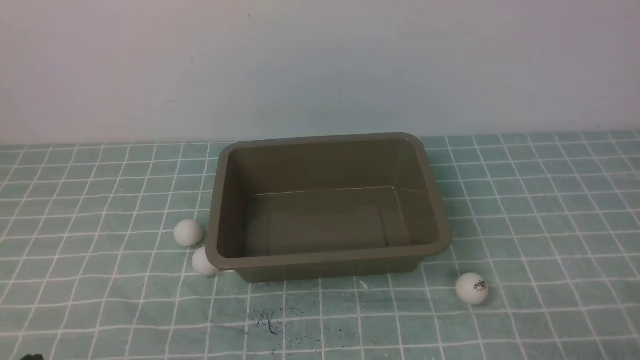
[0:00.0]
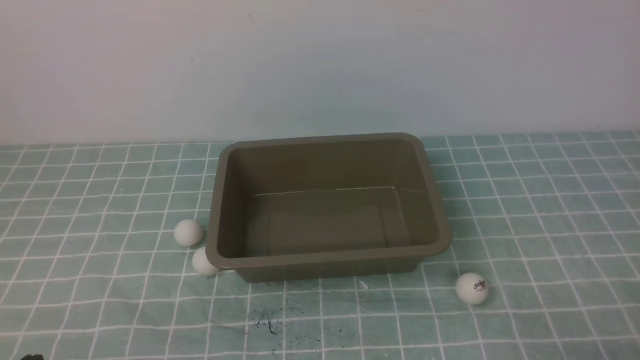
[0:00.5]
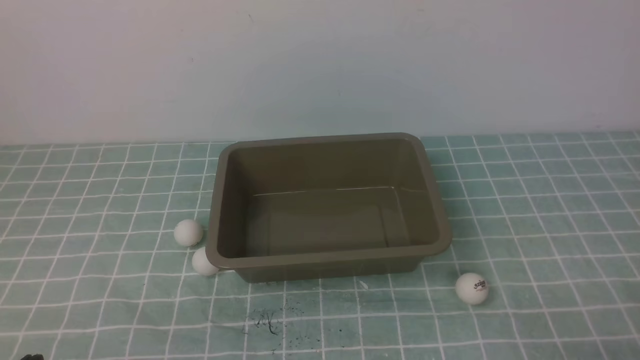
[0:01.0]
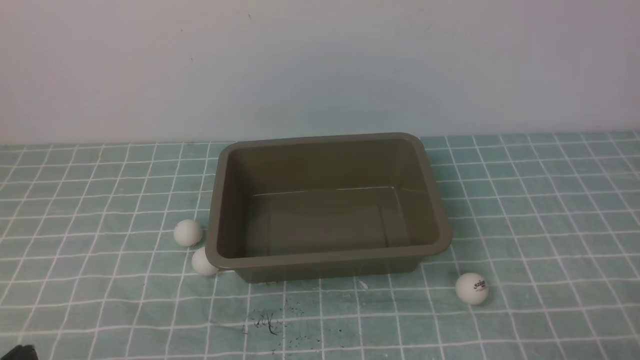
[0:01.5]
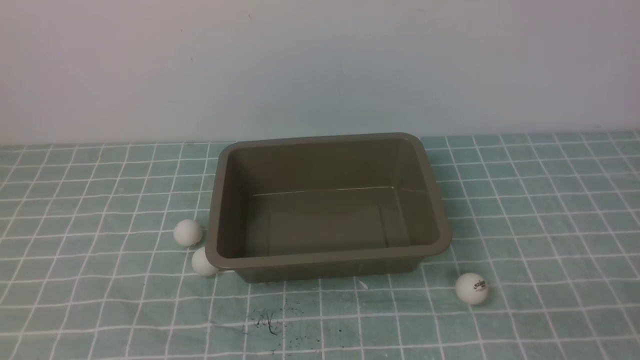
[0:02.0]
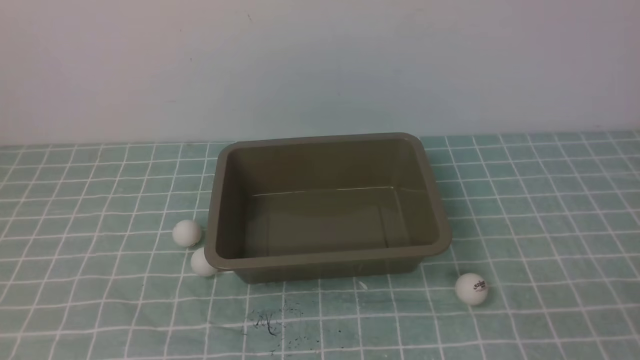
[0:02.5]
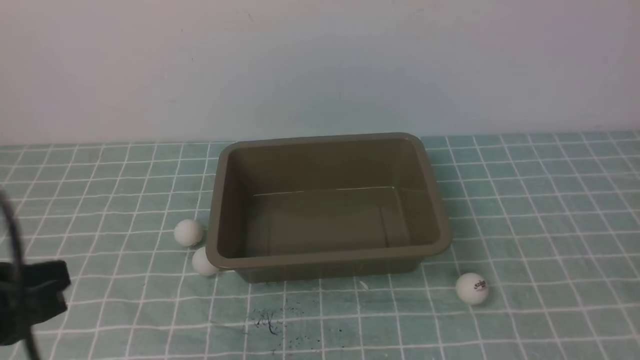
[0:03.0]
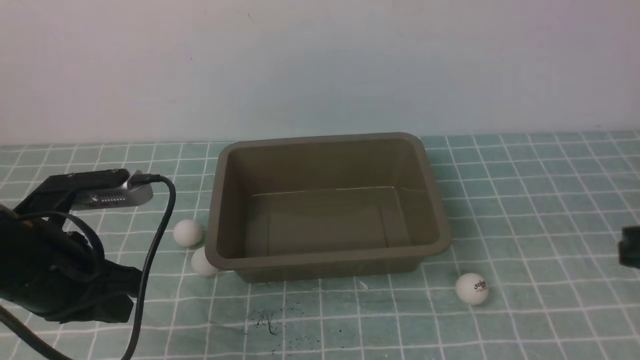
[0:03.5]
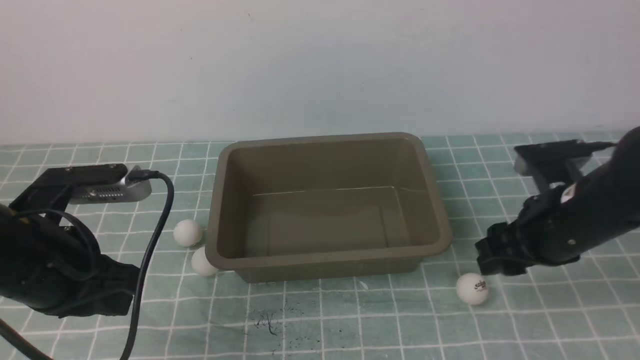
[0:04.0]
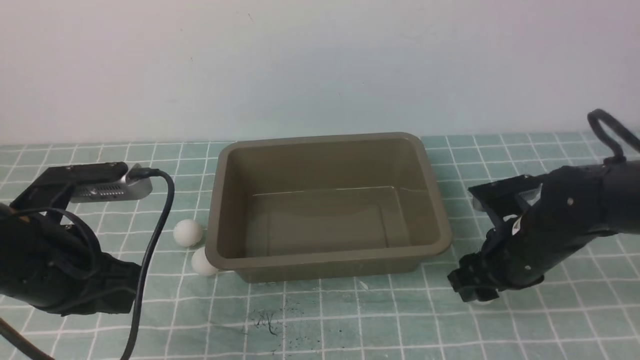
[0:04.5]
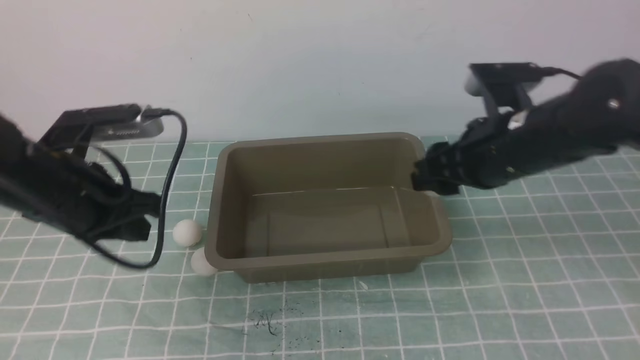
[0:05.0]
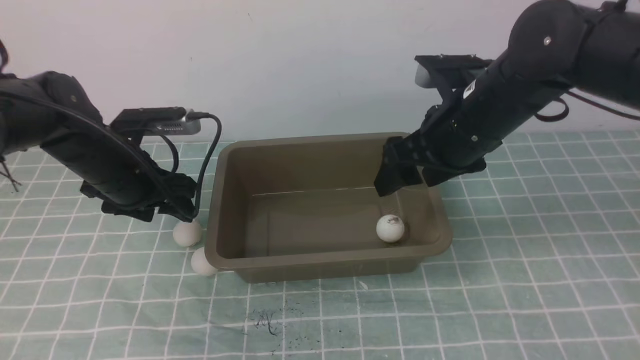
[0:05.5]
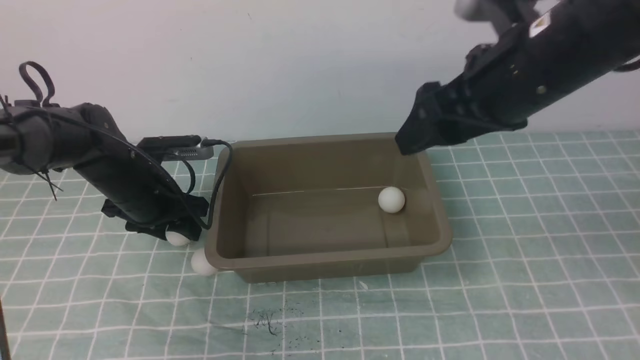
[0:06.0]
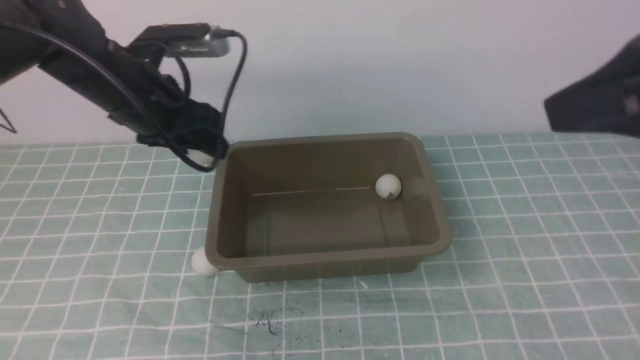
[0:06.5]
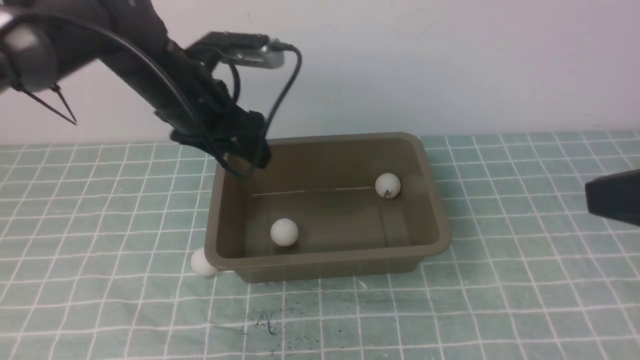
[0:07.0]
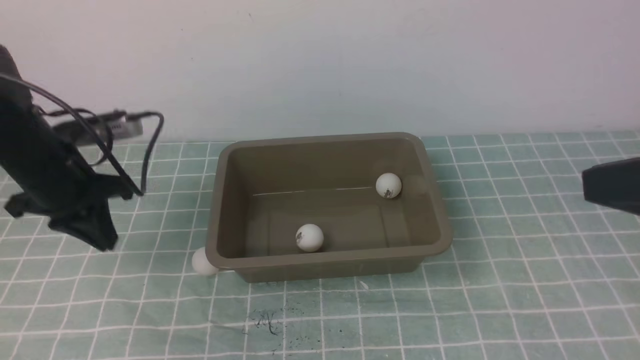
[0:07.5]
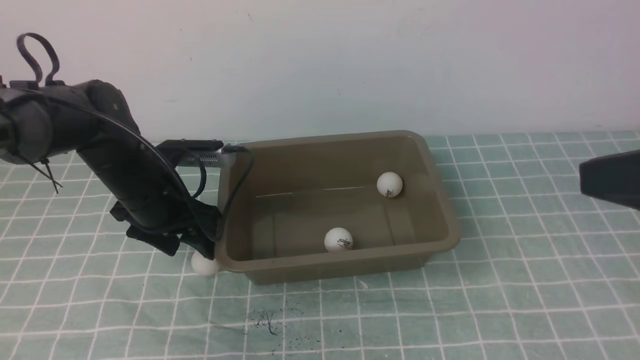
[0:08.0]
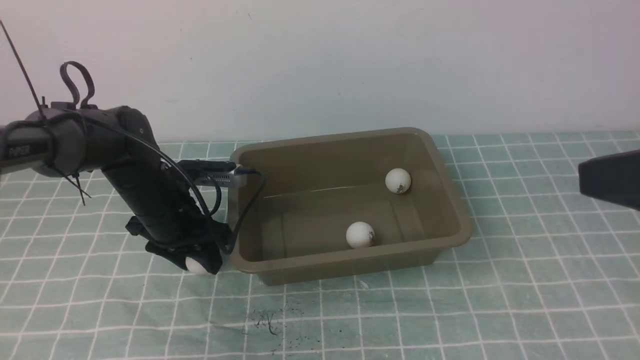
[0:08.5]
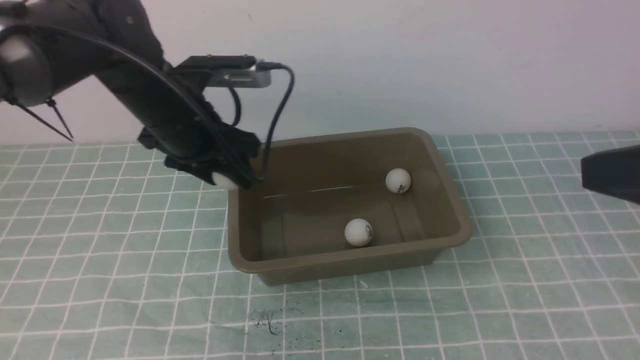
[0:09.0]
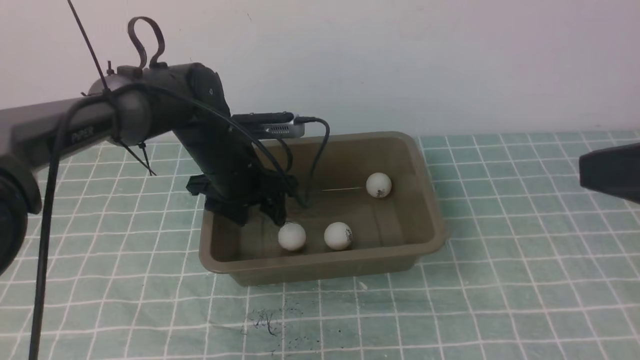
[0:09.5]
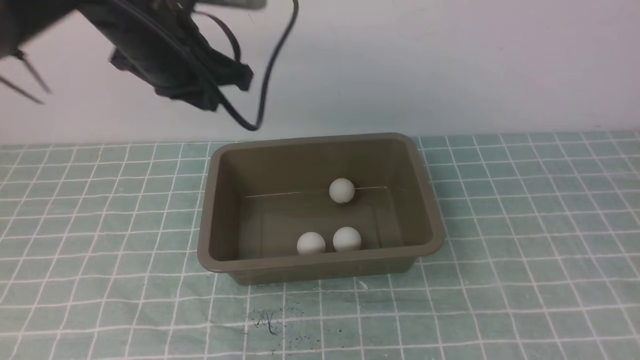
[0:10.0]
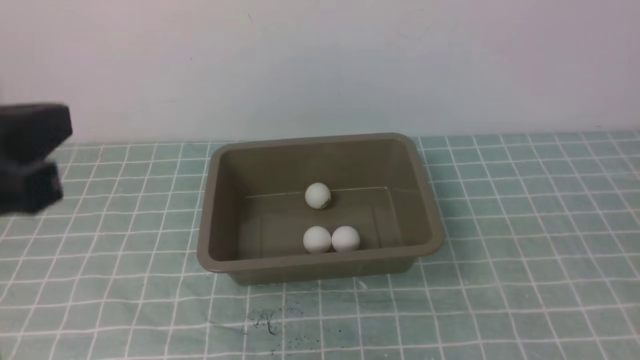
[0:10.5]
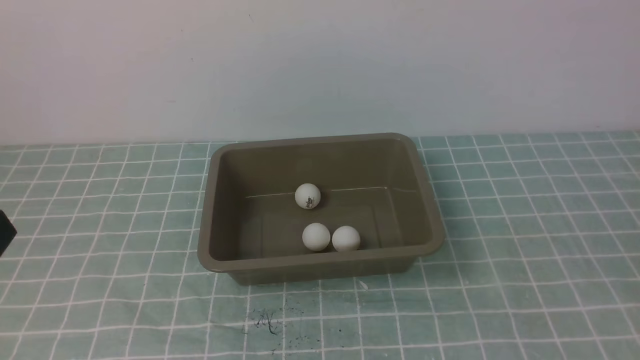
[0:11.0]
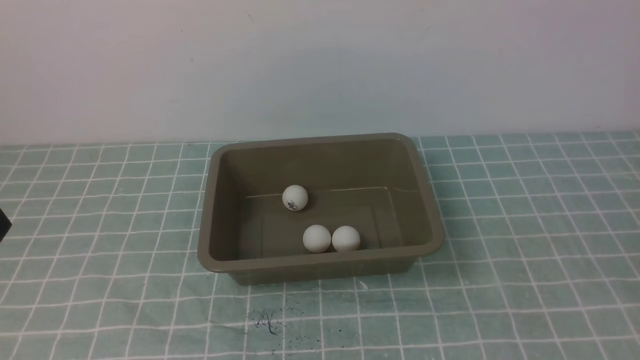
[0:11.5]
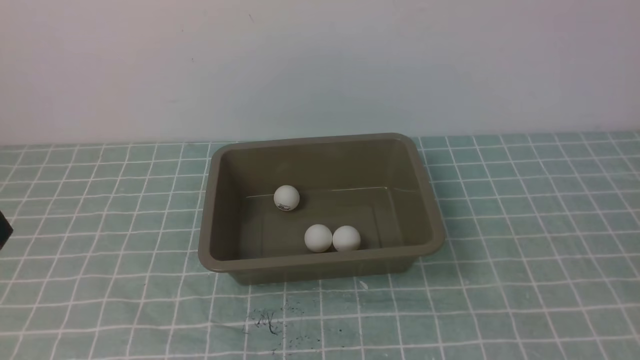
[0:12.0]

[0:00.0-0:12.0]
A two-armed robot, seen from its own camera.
Step, 0:00.0 to 0:04.5: use the right arm to clamp the table tennis ball closest to it.
Step, 0:05.5 to 0:06.0: use the left arm to clamp the table tennis ball closest to it.
Step, 0:07.5 to 0:08.5: use the left arm to clamp the table tennis ball closest to it.
Step, 0:09.0 to 0:09.5: use the left arm to put the table tennis ball into the box.
0:02.0 to 0:04.0: The grippers both shift forward by about 20 cm. The right gripper opens up.
0:04.0 to 0:06.0: The right gripper travels upward by some 15 cm; the left gripper is displaced forward and downward by about 20 cm, and opens its fingers.
0:06.0 to 0:08.0: The right gripper shifts roughly 15 cm backward and to the right, and closes its fingers; the left gripper travels upward and back again, about 10 cm each way, and closes and opens again.
0:08.0 to 0:10.0: The left gripper swings up and down, some 20 cm each way, with 2 reversals, and closes.
0:10.0 to 0:12.0: The right gripper is displaced downward and backward by roughly 10 cm. The left gripper goes some 30 cm backward.

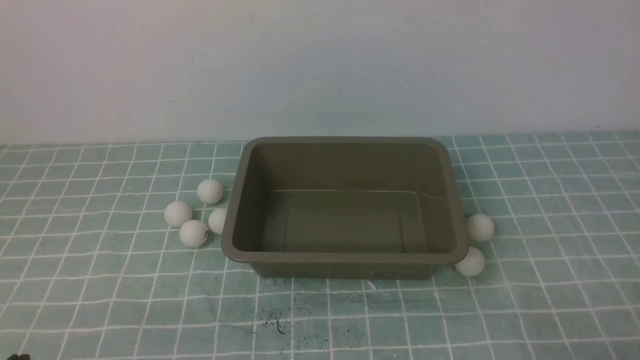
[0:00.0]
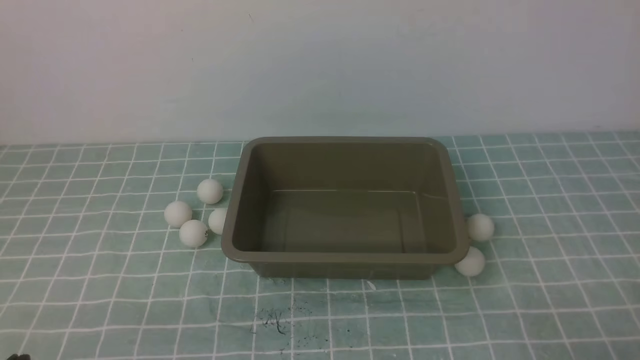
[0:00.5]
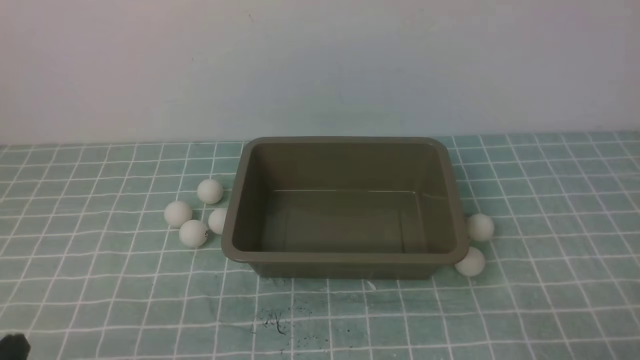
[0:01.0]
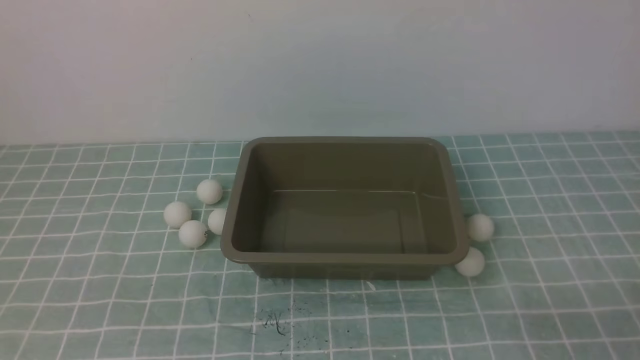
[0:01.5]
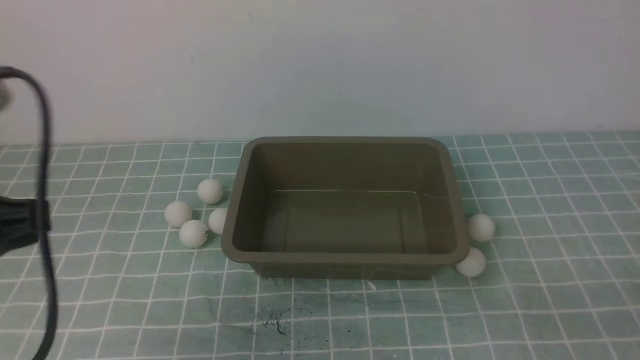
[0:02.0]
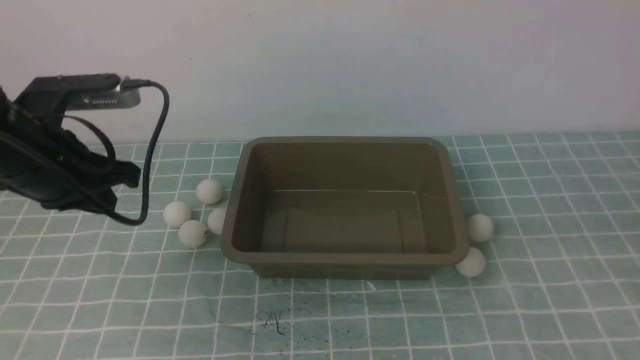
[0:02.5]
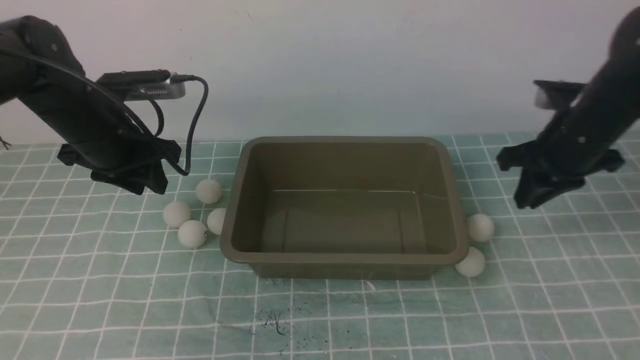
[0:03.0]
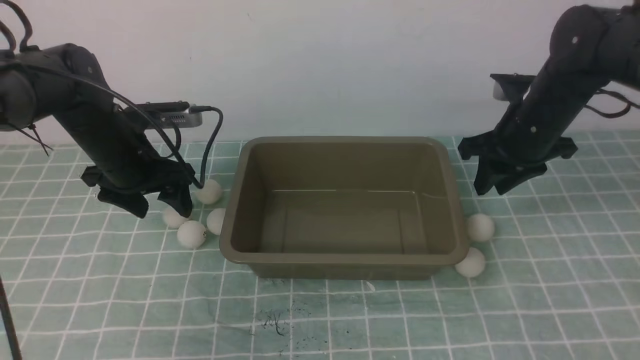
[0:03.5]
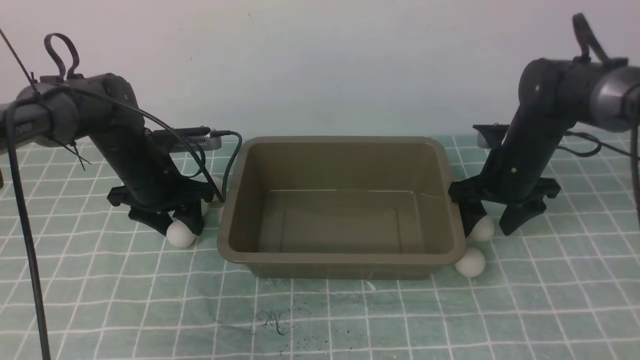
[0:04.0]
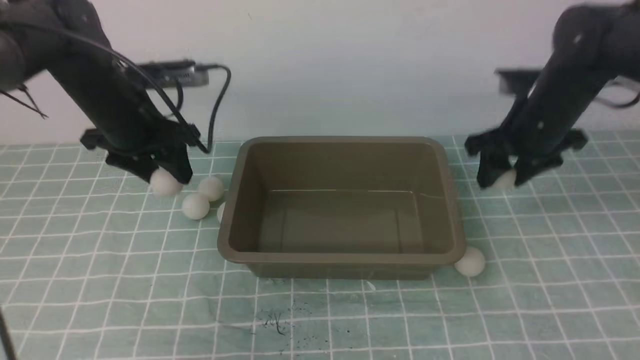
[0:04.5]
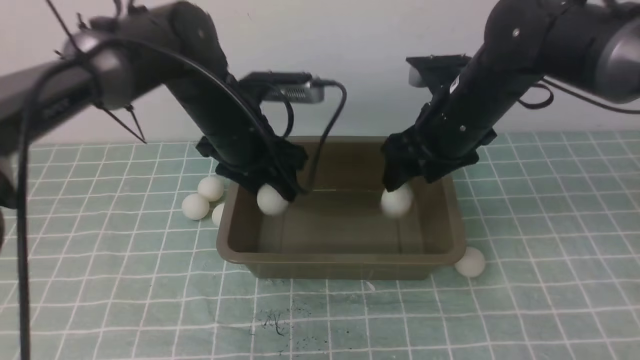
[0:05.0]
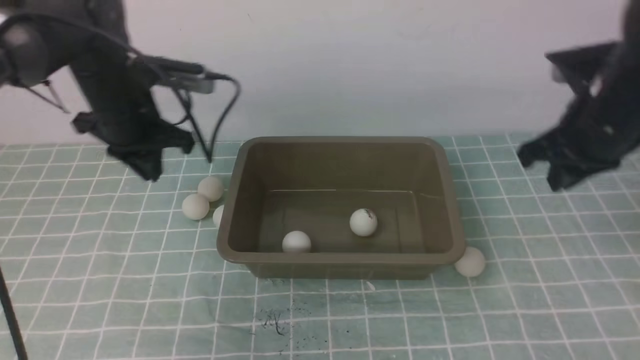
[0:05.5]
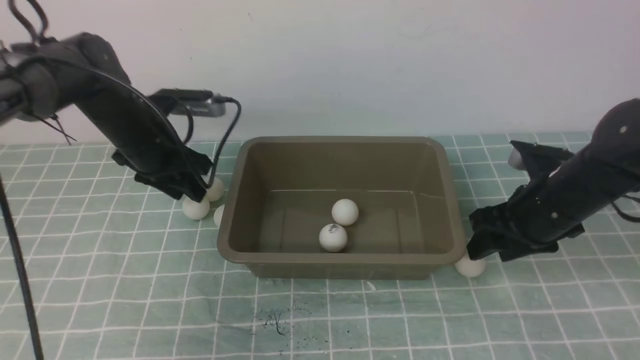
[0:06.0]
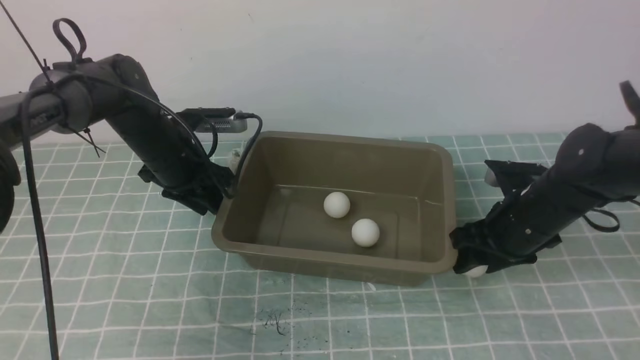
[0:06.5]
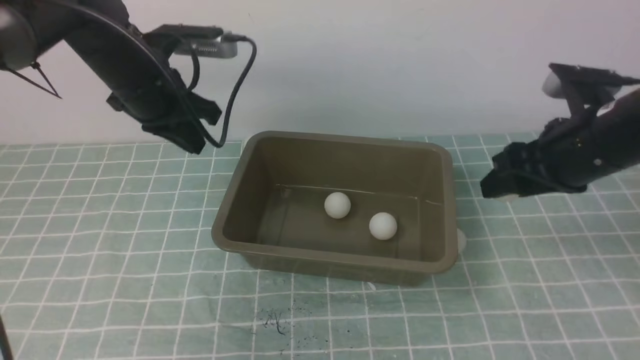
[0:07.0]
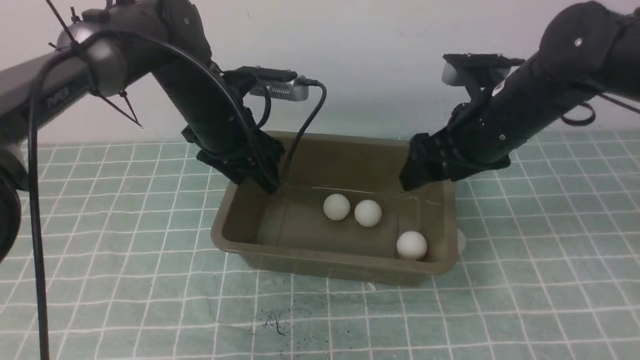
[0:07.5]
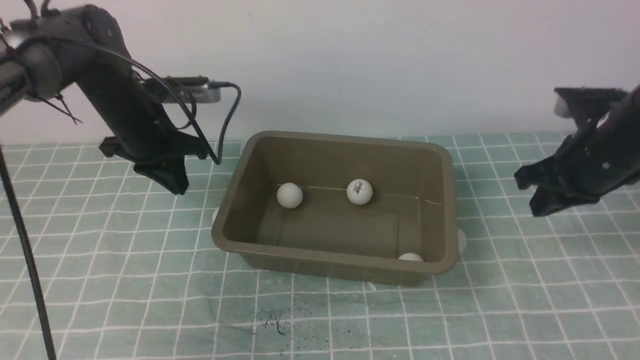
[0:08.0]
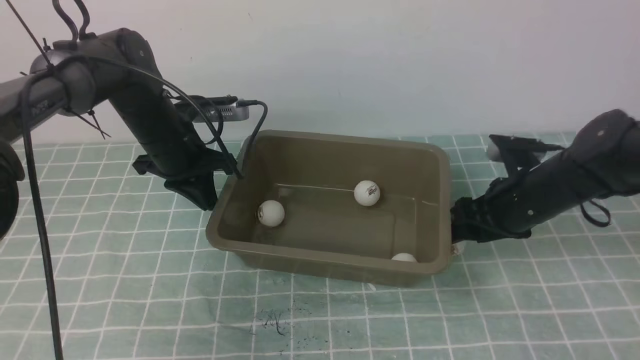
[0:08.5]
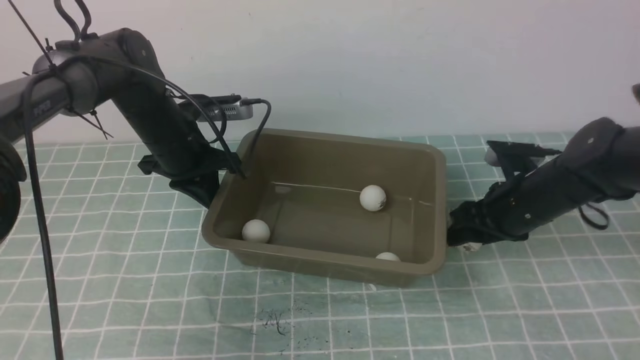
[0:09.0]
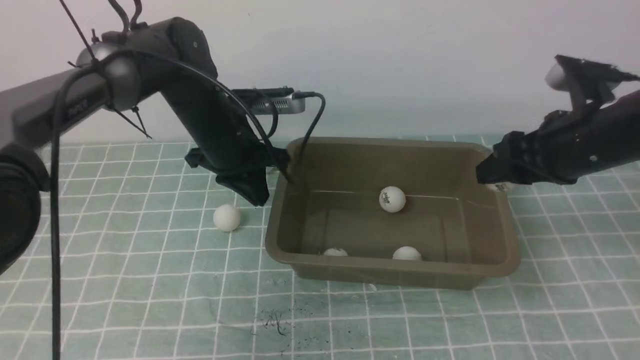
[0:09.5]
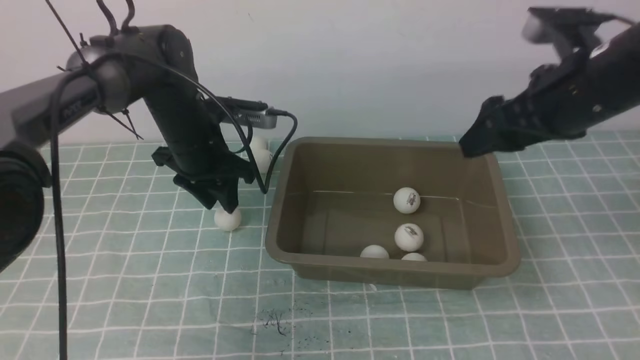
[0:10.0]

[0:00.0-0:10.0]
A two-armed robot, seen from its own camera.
Step, 0:00.0 to 0:04.0: use the right arm to clamp the table tennis ball closest to it.
Step, 0:04.5 to 0:05.0: use the left arm to put the table tennis ball into the box.
Step, 0:05.5 to 0:06.5: use the right arm to clamp the table tennis ball closest to it.
Step, 0:07.0 to 0:08.0: use the right arm to put the table tennis ball into the box.
Step, 0:08.5 to 0:09.0: use the right arm to clamp the table tennis ball closest to it.
0:02.0 to 0:04.0: The right gripper is displaced forward by some 35 cm, and opens up. The left gripper is displaced forward and downward by roughly 35 cm, and opens its fingers.
0:04.0 to 0:06.0: The left gripper closes up. Meanwhile the right gripper travels backward by roughly 10 cm, travels upward and back again, roughly 10 cm each way, and closes its fingers.
0:06.0 to 0:08.0: The left gripper reaches approximately 5 cm upward, then returns, and closes up; the right gripper goes about 5 cm upward, and opens, then closes again.
0:08.0 to 0:10.0: The right gripper heads upward, covering some 5 cm, and opens up. Meanwhile the left gripper travels to the right by approximately 5 cm.
